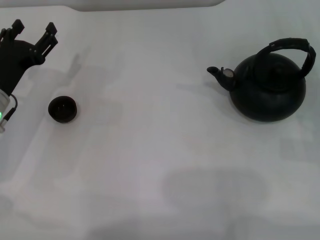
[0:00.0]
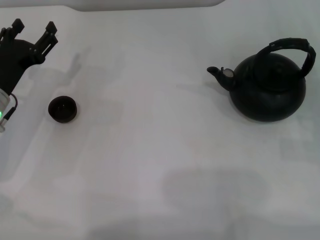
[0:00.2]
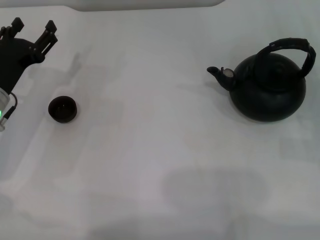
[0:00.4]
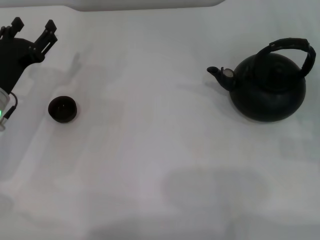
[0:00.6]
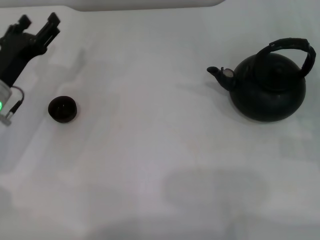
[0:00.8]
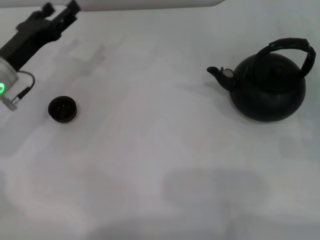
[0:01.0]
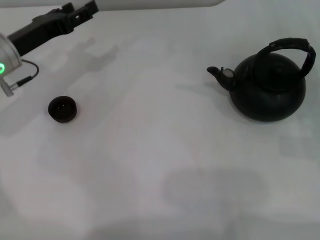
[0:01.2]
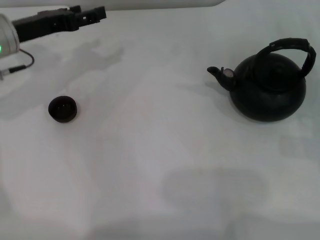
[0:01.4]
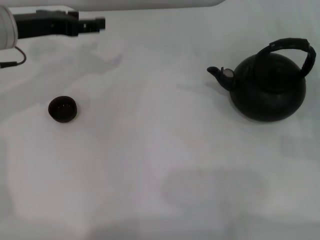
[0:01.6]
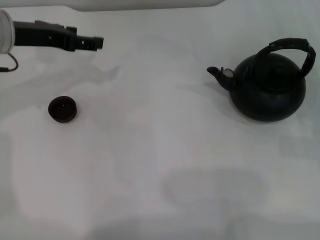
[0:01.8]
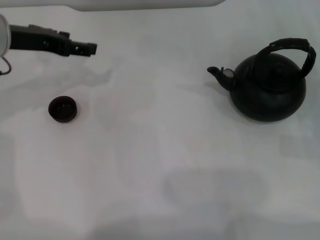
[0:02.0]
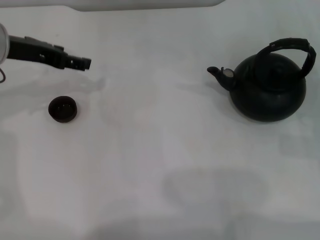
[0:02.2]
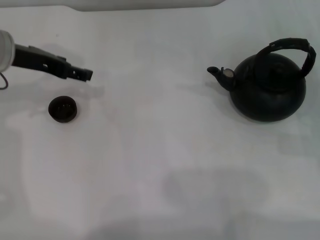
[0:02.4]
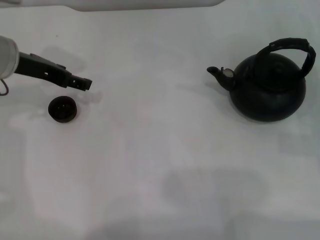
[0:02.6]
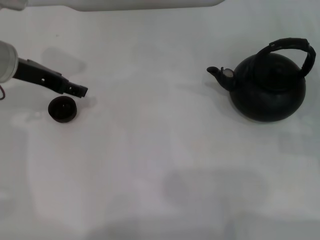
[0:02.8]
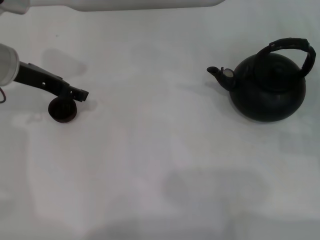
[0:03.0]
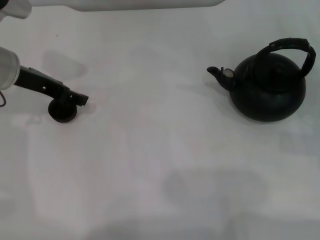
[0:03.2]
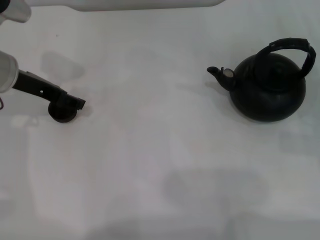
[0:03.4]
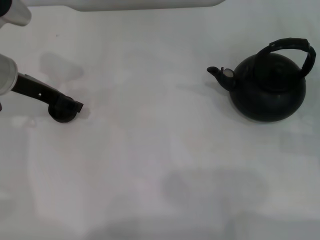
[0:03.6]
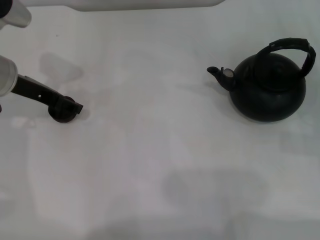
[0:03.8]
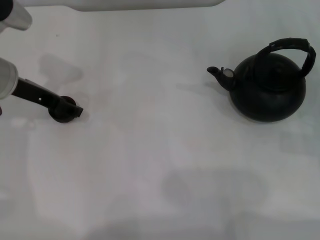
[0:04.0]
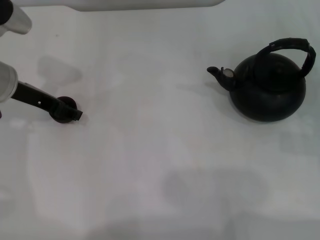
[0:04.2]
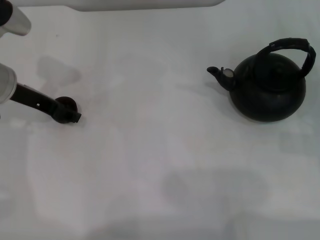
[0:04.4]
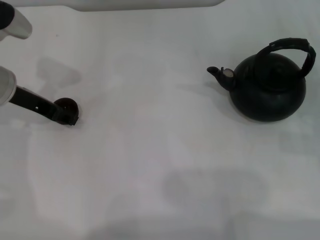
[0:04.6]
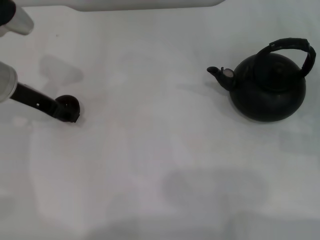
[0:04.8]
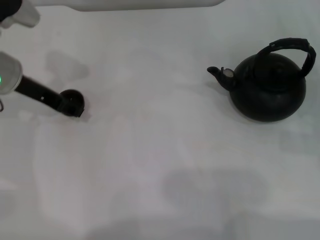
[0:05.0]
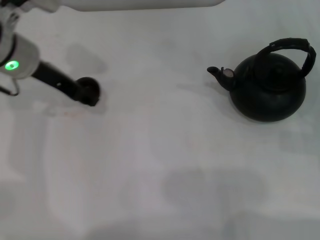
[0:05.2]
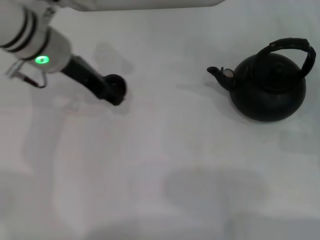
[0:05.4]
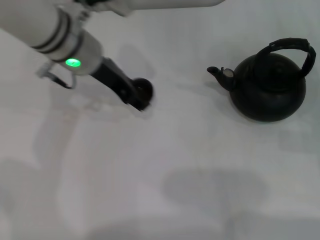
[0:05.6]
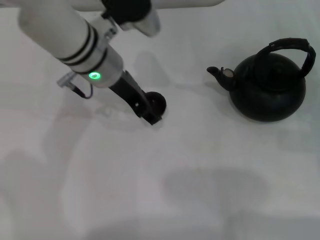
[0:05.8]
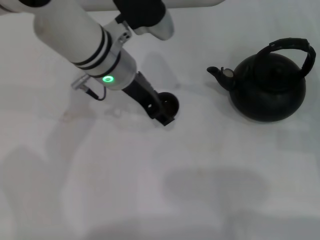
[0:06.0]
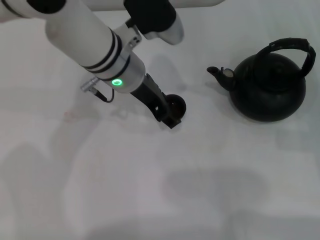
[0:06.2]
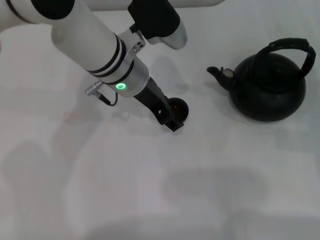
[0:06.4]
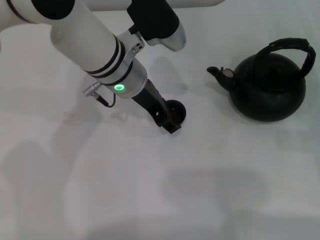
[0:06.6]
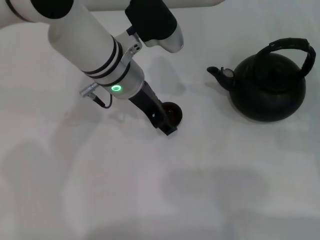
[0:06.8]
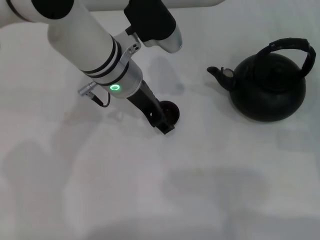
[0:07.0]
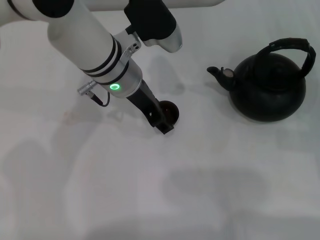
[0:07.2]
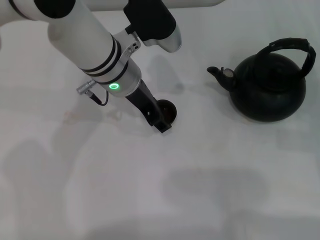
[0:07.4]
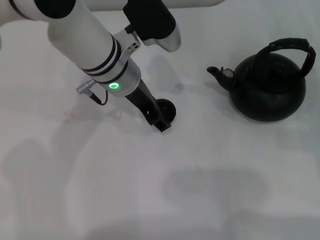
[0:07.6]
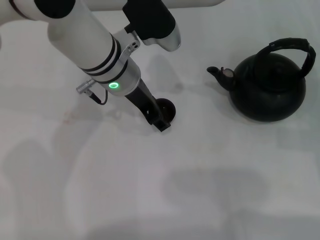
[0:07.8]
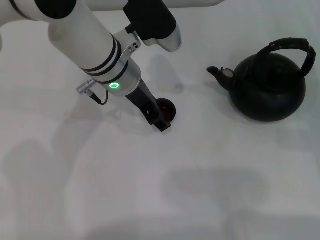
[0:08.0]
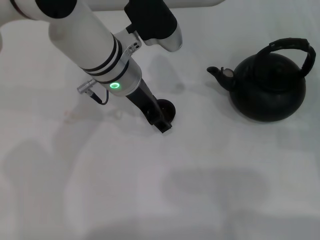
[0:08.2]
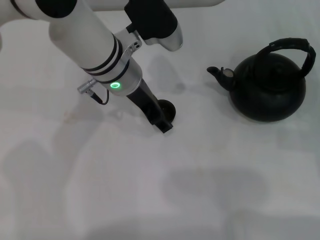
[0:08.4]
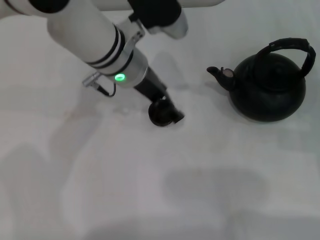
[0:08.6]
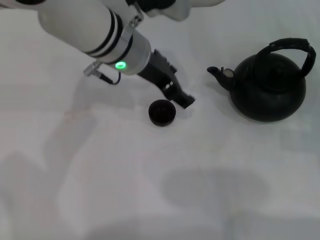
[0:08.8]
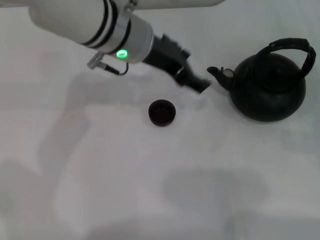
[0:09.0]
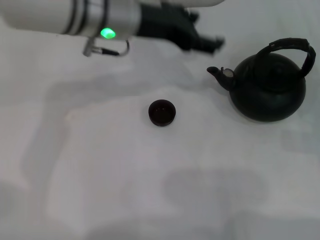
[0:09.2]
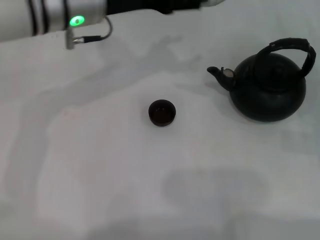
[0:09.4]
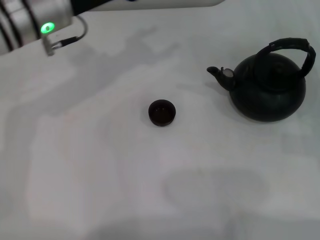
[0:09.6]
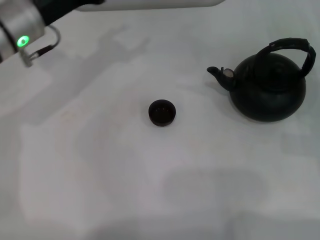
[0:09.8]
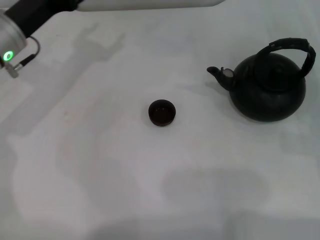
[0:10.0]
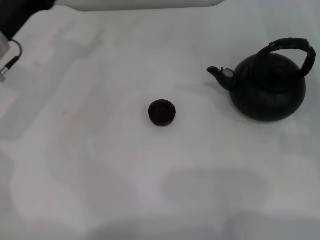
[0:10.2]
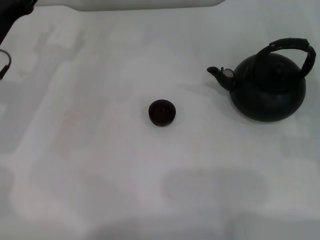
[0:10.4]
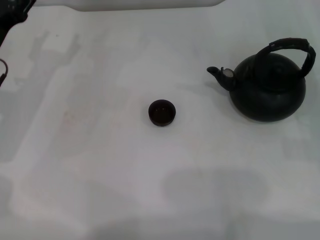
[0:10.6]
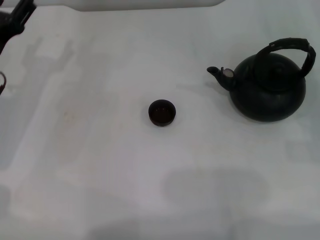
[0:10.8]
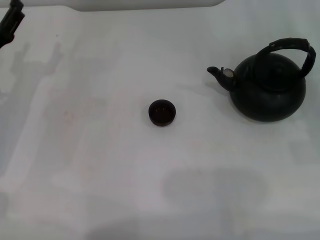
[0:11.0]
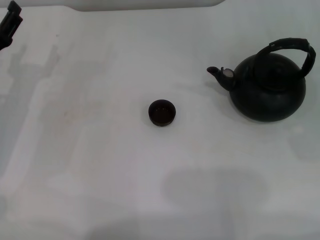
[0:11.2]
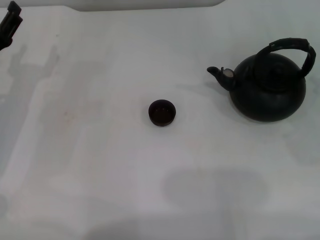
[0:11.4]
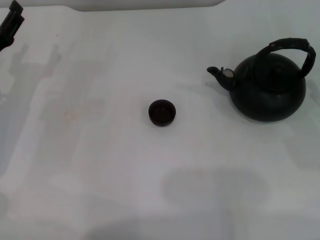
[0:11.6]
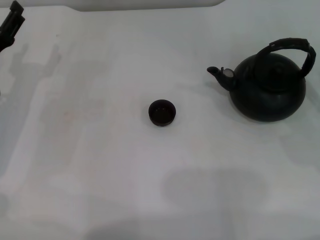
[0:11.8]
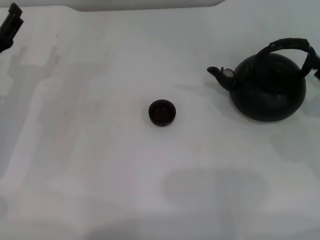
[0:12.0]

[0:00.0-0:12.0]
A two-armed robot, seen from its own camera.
Task of the whole recording: Grasp the handle of the teapot with one hand and pour tea into the teacup.
Step, 0:00.0 to 0:05.4: Pick up the teacup with the left gripper.
Step, 0:05.6 to 0:08.8: Place the teacup in the center of view with the left gripper.
0:00.0 to 0:01.6: The left gripper shifts about 15 cm upward and forward.
0:03.0 to 0:04.4: The grippers stay close to where they were, moving slightly.
0:04.4 to 0:06.0: The left gripper shifts about 15 cm to the right, and closes.
0:06.0 to 0:07.6: The grippers make only small movements.
0:07.6 to 0:09.0: The left gripper is displaced upward by some 5 cm, and opens.
0:09.0 to 0:10.4: The left gripper heads to the left and downward, covering about 25 cm.
0:10.4 to 0:12.0: The left gripper shifts by roughly 5 cm.

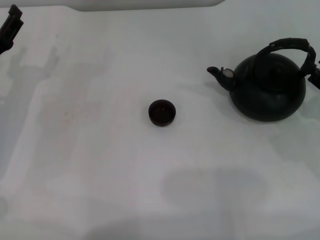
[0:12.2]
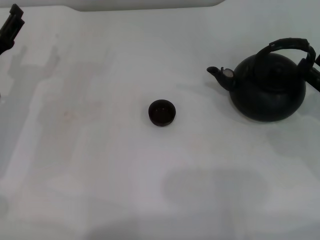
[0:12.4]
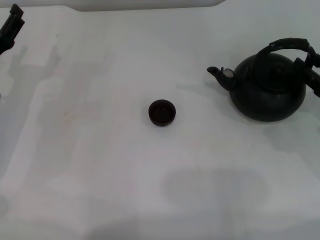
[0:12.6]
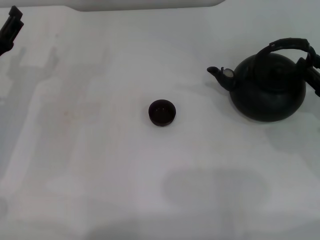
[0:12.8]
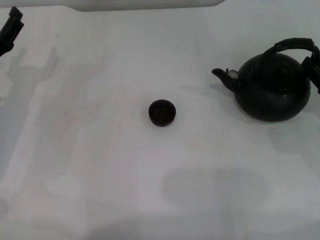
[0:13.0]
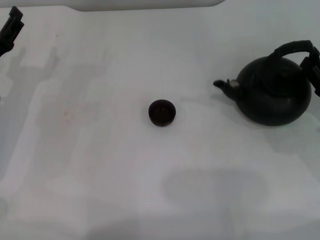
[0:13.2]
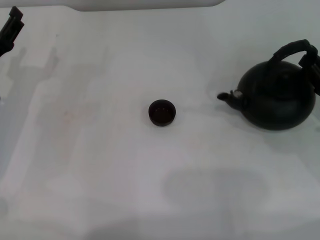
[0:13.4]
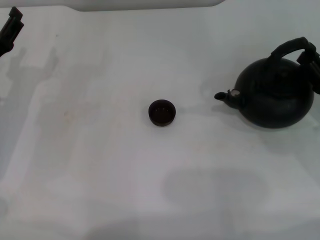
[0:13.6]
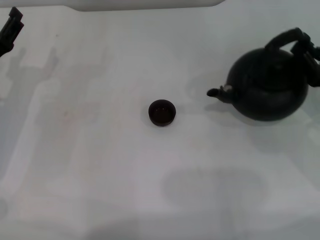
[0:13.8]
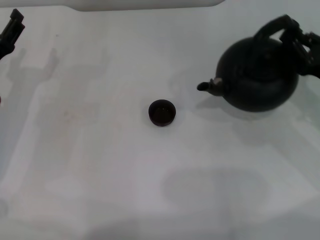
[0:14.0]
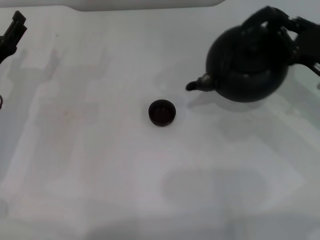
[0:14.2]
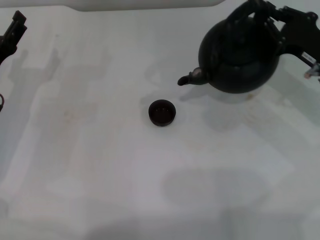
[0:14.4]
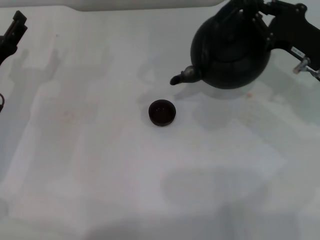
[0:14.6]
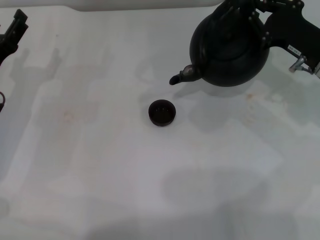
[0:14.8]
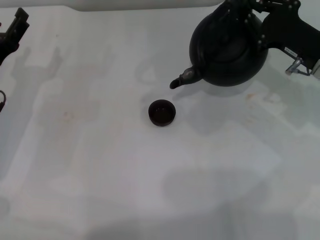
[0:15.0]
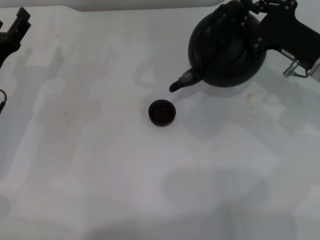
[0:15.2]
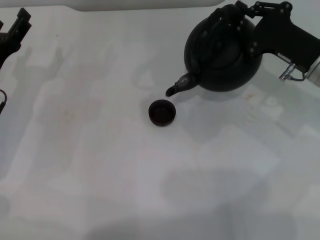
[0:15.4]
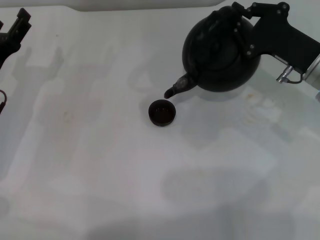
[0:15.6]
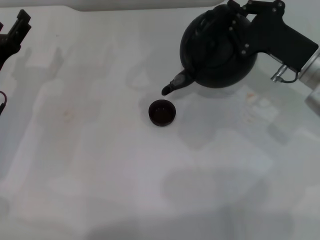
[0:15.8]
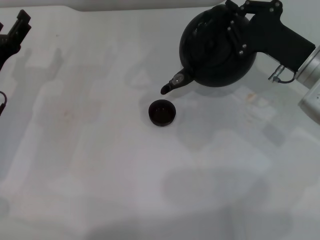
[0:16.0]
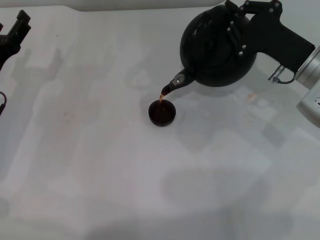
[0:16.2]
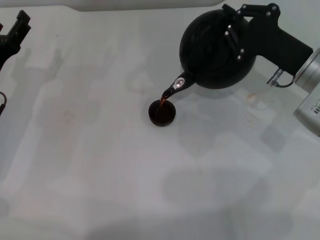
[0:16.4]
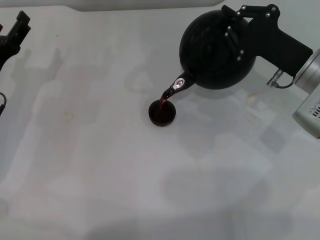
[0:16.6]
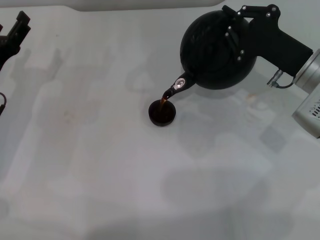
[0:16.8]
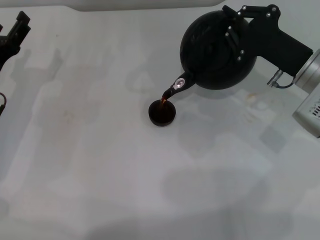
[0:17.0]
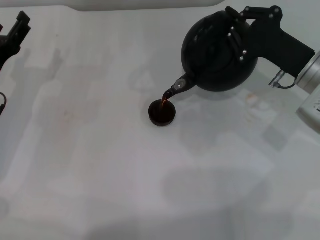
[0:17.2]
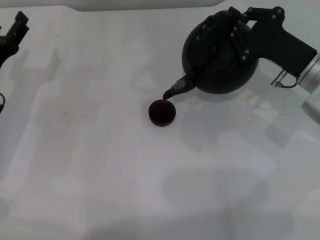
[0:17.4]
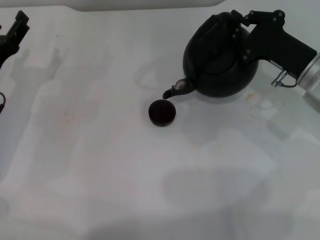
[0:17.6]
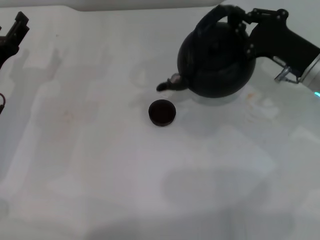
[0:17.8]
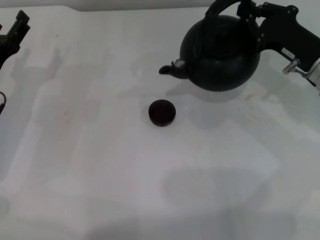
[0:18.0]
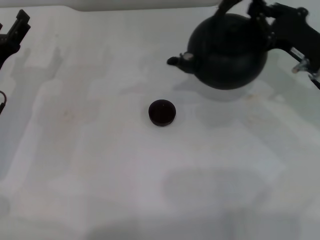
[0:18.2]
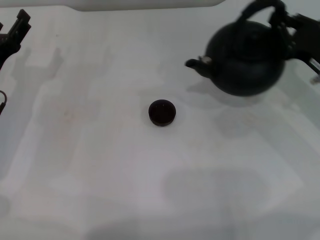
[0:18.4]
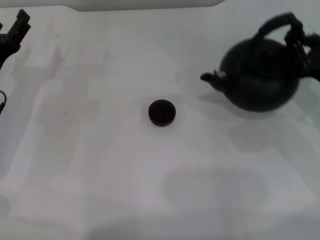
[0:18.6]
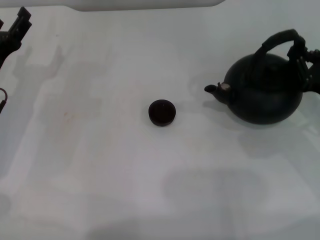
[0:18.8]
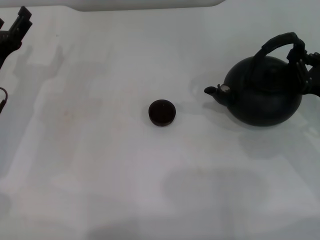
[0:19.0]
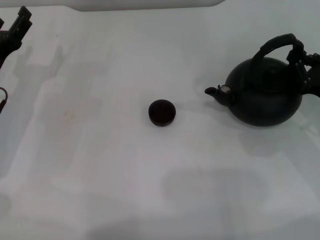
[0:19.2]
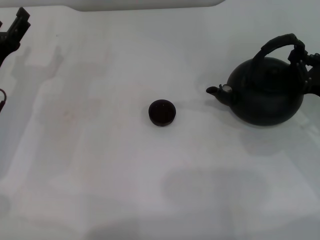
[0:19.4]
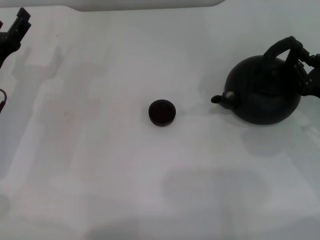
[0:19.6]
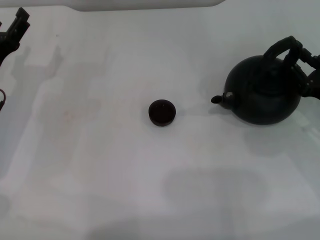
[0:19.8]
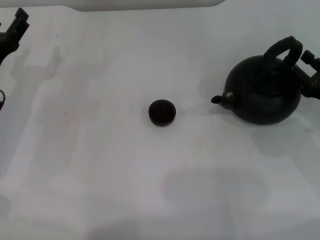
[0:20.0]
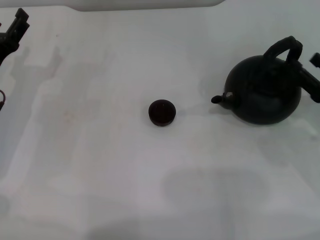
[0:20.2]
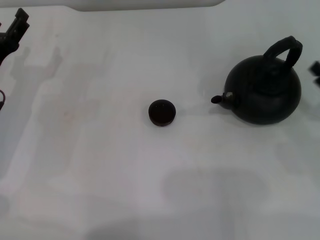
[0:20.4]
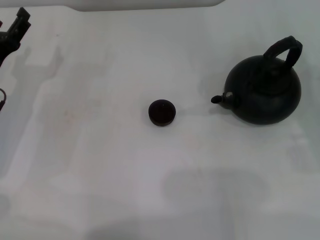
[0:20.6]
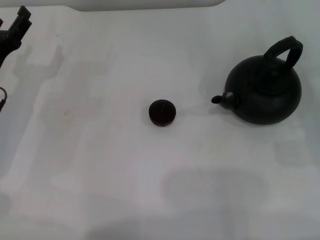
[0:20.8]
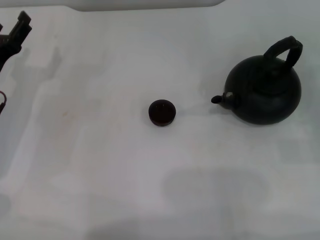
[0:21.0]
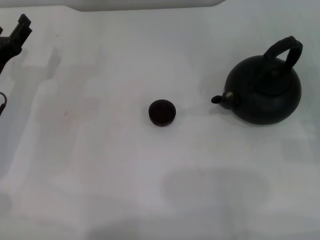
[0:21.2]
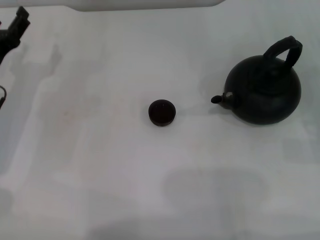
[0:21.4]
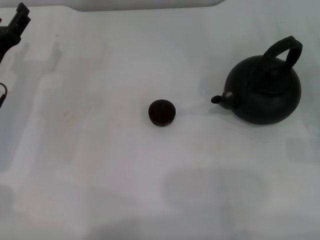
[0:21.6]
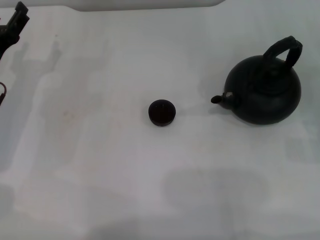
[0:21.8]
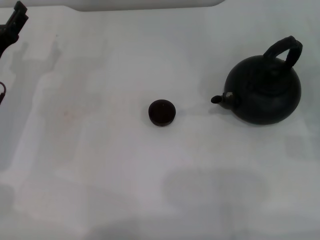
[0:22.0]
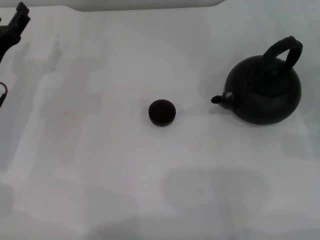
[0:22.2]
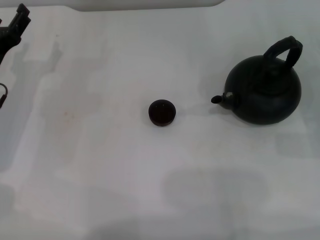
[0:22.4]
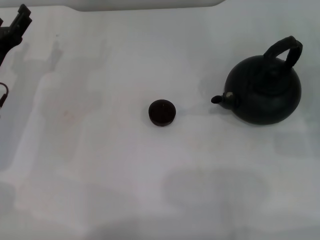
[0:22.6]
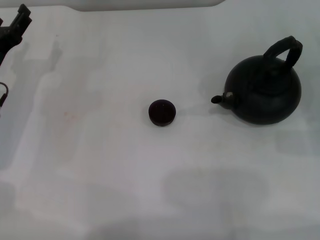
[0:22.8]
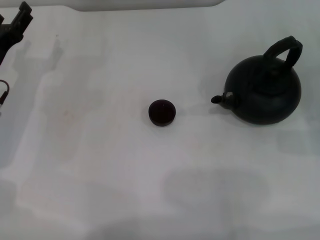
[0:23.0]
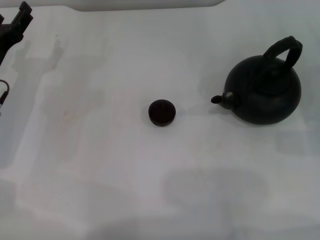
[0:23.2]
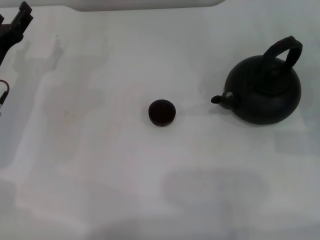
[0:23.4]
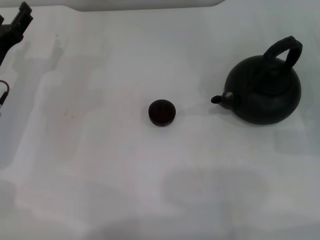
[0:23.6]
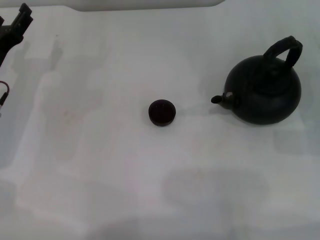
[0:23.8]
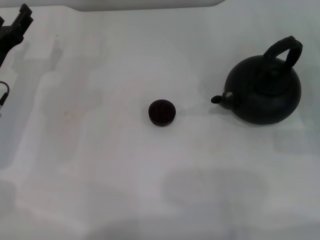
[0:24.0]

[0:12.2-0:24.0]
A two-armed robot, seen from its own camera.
Task of the whole recording: Grasp the handle of the teapot with one hand and pour tea into the teacup.
Step, 0:14.0 to 0:18.0: Pour tea into the teacup with the right gripper.
Step, 0:18.2 to 0:20.2: Put down the teapot with the right gripper.
0:12.2 to 0:13.6: The right gripper closes its fingers.
0:13.6 to 0:15.2: The right gripper heads forward and to the left, covering approximately 10 cm.
0:18.2 to 0:19.6: The right gripper travels backward by approximately 5 cm.
0:19.6 to 0:21.0: The right gripper travels to the right by approximately 5 cm, and opens its fingers.
0:21.0 to 0:22.6: The grippers move only a little.
0:22.6 to 0:24.0: Both grippers stay put.
